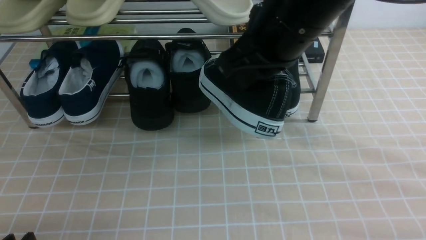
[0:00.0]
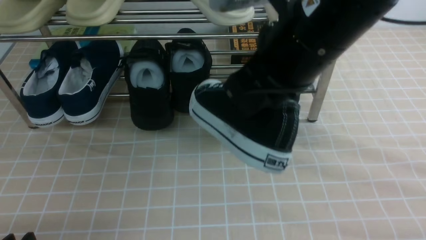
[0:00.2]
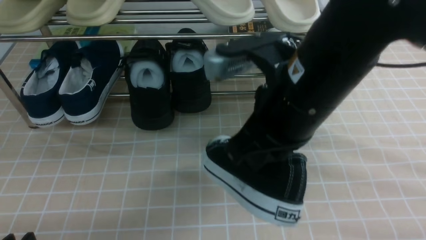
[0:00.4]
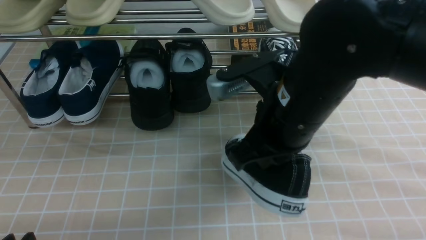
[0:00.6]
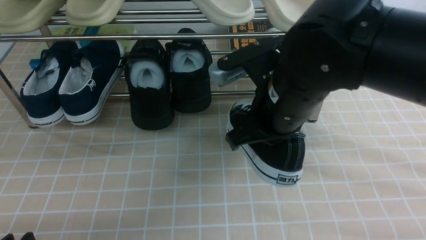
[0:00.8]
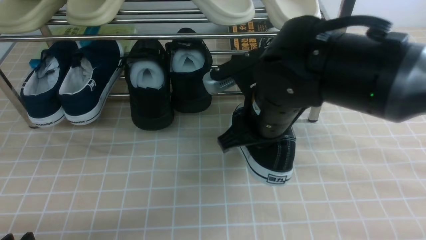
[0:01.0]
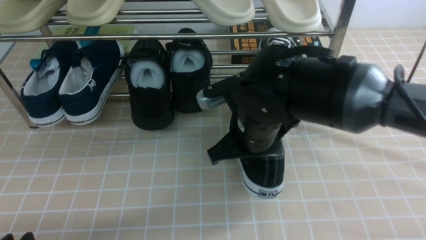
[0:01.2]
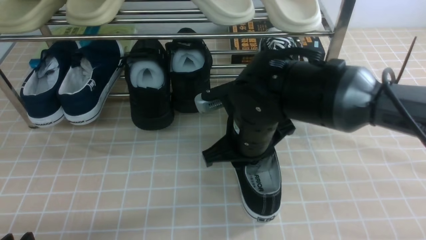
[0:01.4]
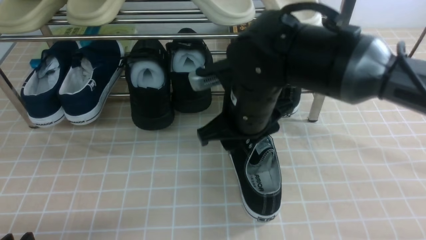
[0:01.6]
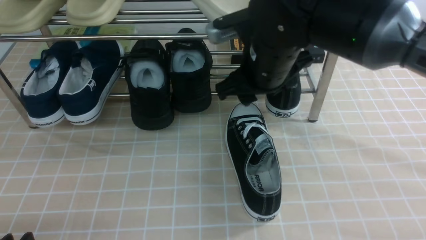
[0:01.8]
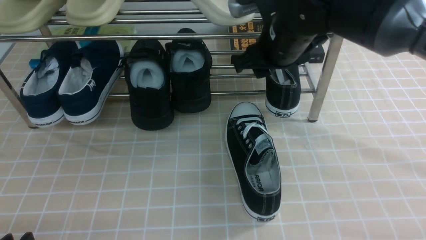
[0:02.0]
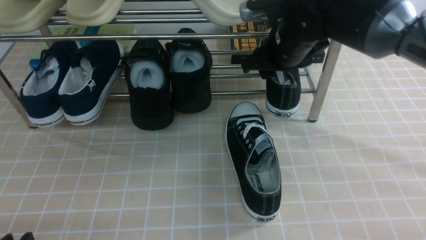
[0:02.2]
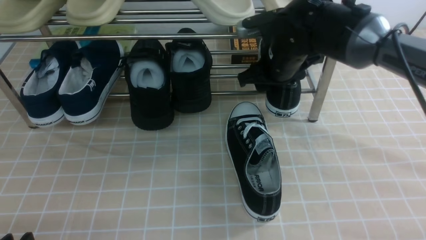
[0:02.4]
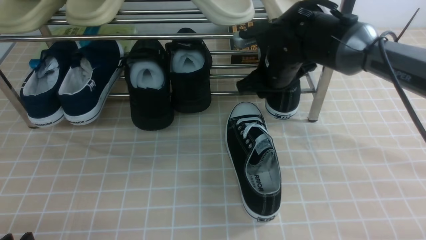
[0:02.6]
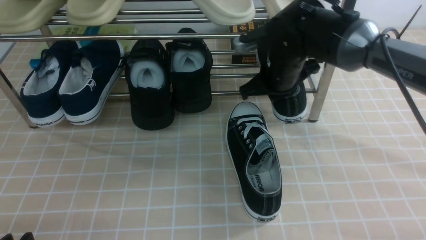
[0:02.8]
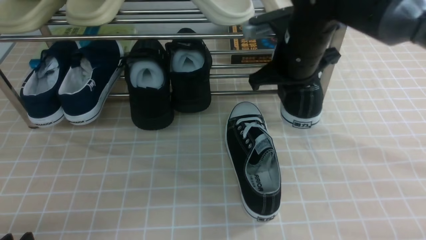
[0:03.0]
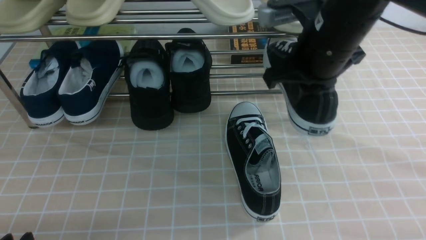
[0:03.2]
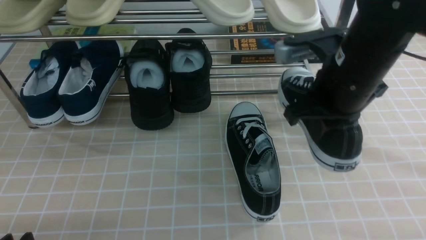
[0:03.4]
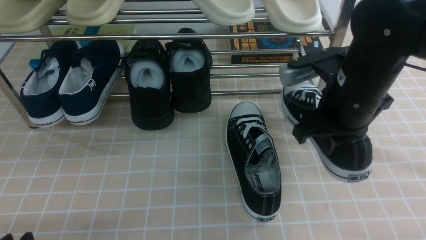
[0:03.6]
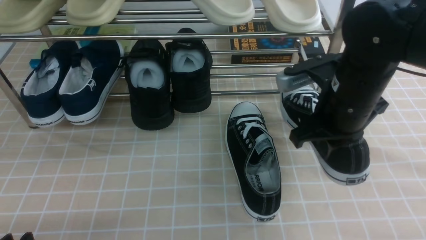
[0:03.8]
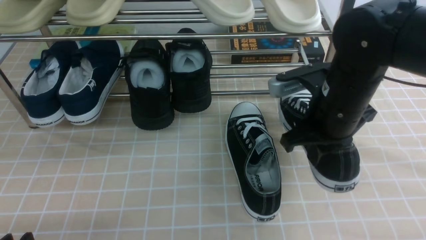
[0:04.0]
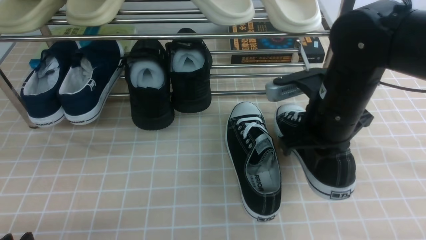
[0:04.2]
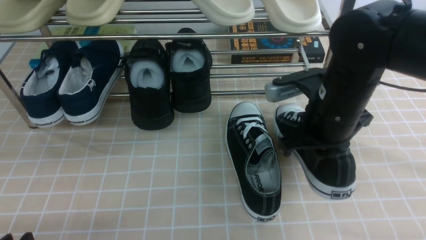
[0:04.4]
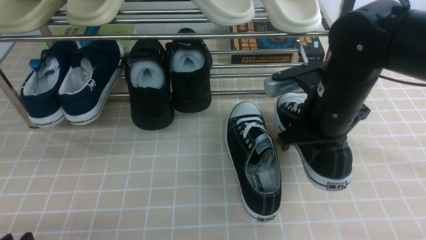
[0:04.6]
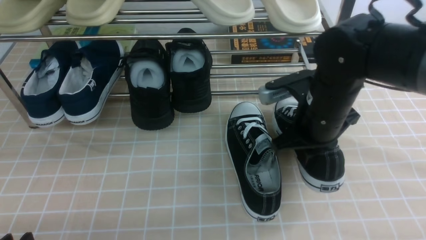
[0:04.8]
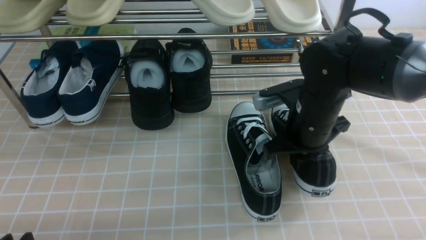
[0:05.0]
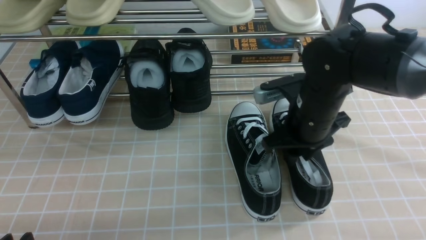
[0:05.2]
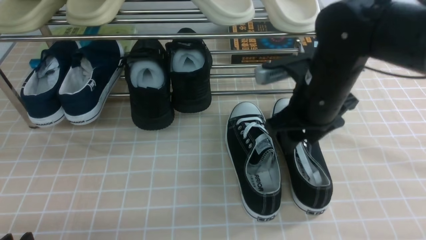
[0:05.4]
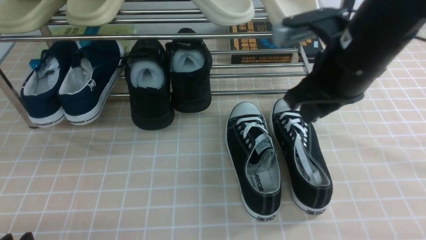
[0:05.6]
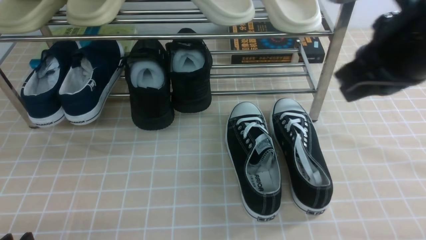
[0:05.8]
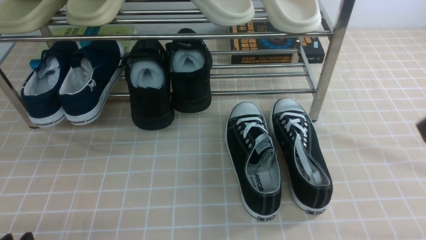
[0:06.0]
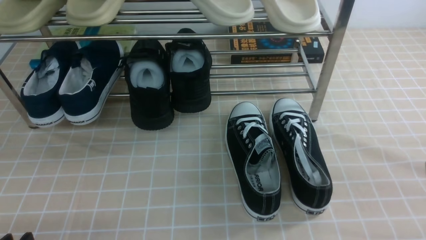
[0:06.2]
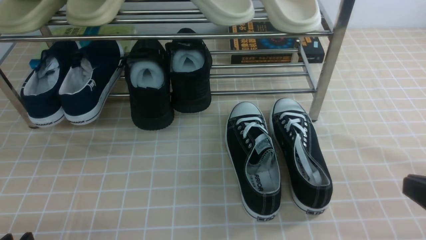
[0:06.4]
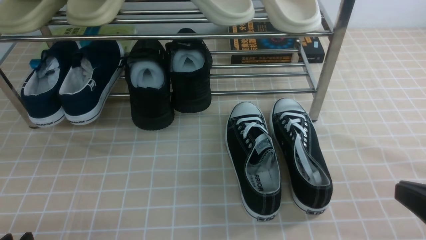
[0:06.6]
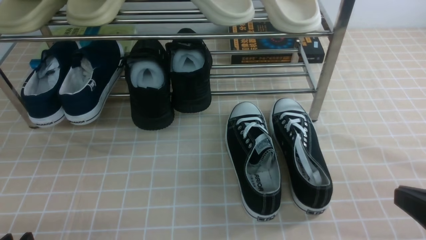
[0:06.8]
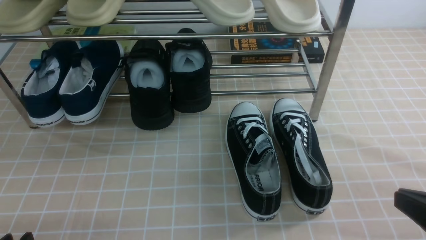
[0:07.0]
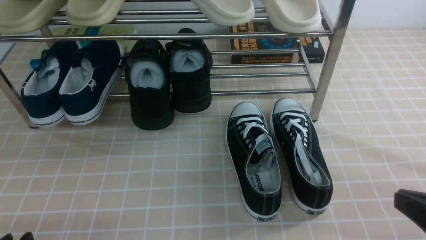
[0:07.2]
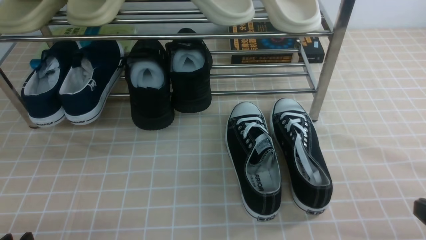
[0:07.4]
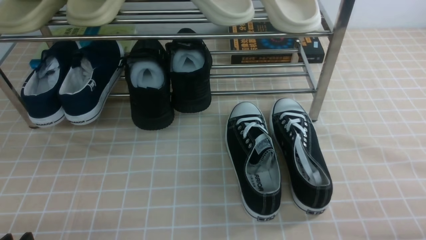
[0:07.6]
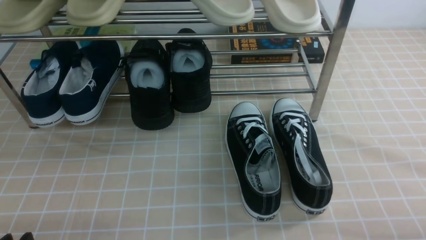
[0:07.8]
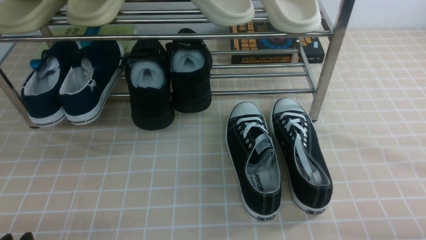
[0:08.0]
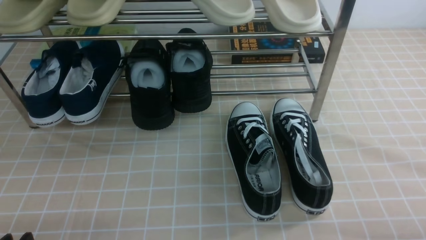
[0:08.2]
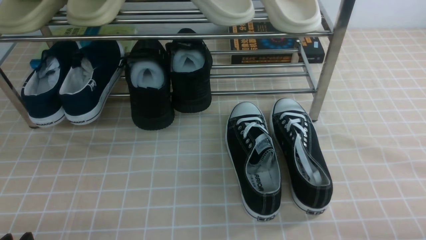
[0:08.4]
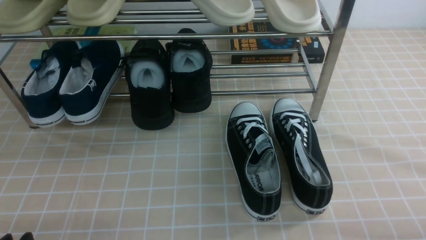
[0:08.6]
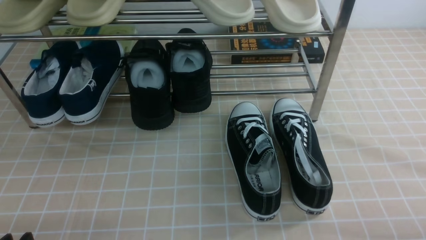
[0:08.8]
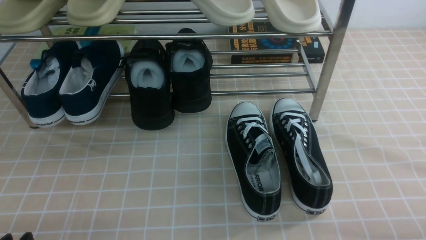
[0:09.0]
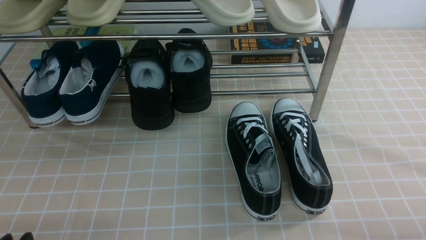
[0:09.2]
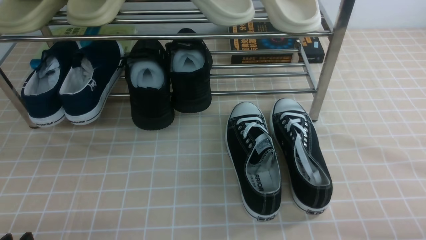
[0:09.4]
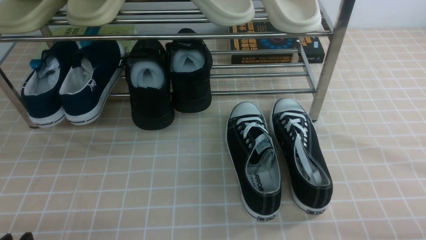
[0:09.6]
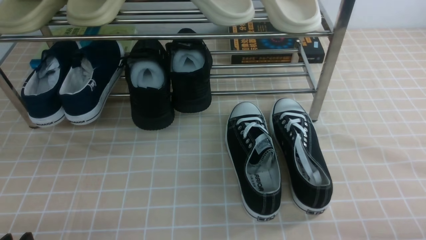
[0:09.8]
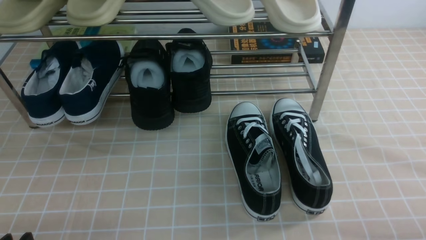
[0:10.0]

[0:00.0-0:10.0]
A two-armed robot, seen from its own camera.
Step, 0.0 to 1.4 s: use the right arm to take out the clamped shoe from the shoe rack and put it down.
Step, 1.8 to 2.6 s: use the right arm to clamp a shoe on the right side of the shoe rack.
Step, 2.8 to 5.4 s: use the right arm to take out the clamped shoe from the shoe rack and put it down.
0.0 to 1.4 s: The right gripper shifts approximately 15 cm downward, and opens up.
1.4 to 2.8 s: The right gripper is displaced forward and to the right by about 15 cm, and closes up.
2.8 to 4.2 s: The right gripper heads backward, covering approximately 10 cm.
4.2 to 5.8 s: The right gripper travels upward and backward by some 15 cm, and opens, then closes once more.
5.8 to 7.2 s: The right gripper shifts roughly 20 cm downward, backward and to the right.
7.2 to 8.6 s: The right gripper travels downward by about 10 cm.
8.6 to 10.0 s: Both grippers stay about where they are.

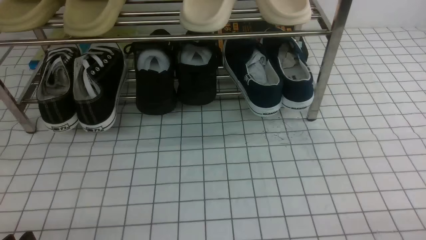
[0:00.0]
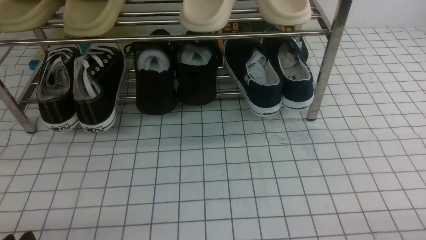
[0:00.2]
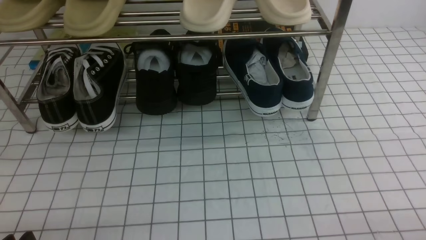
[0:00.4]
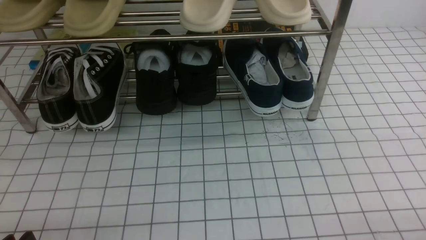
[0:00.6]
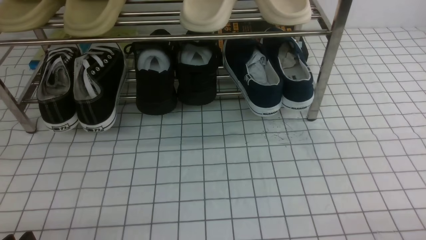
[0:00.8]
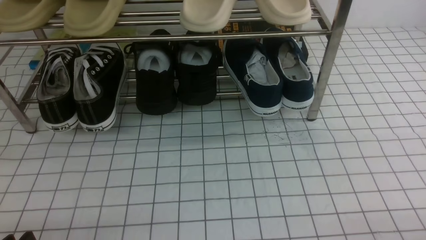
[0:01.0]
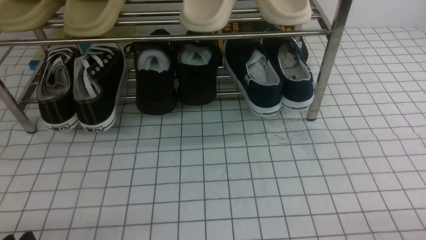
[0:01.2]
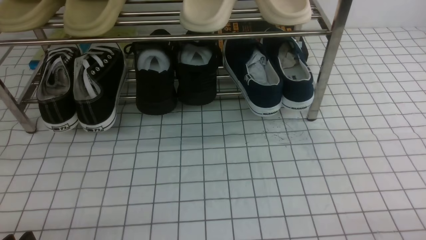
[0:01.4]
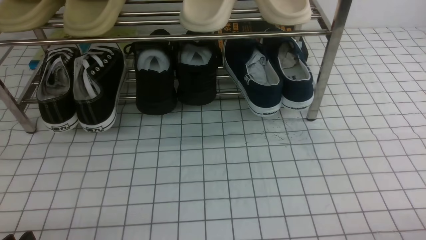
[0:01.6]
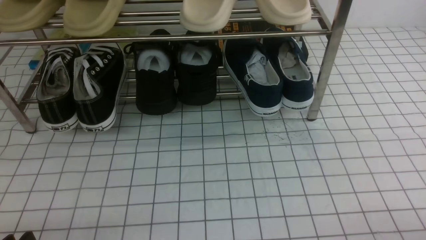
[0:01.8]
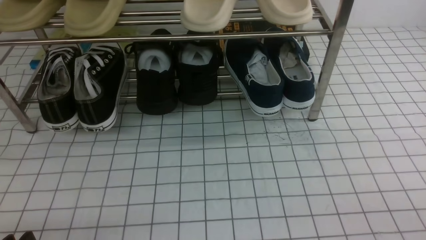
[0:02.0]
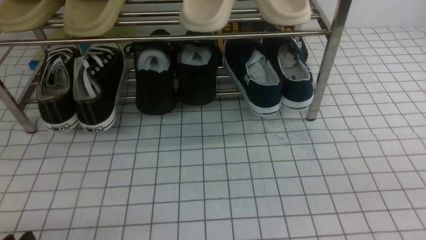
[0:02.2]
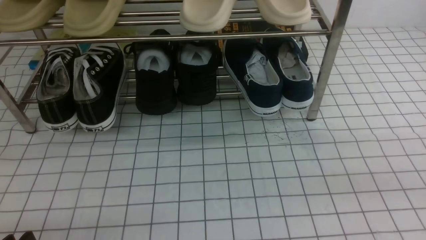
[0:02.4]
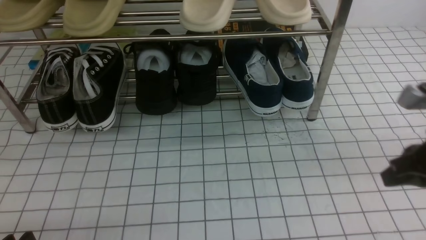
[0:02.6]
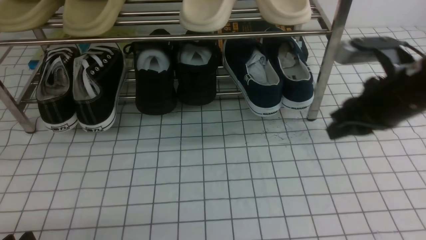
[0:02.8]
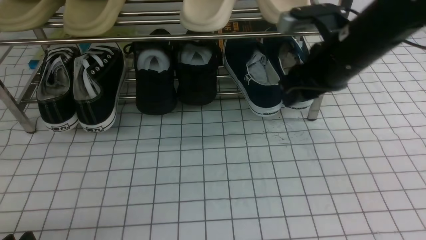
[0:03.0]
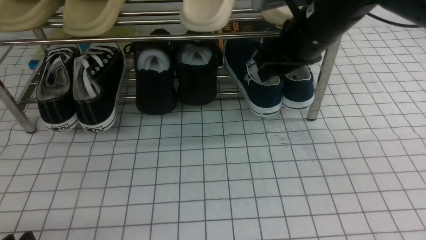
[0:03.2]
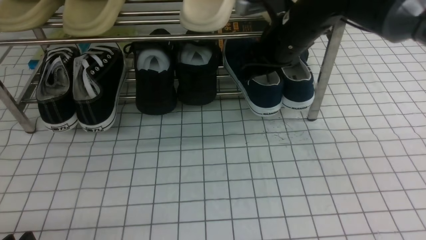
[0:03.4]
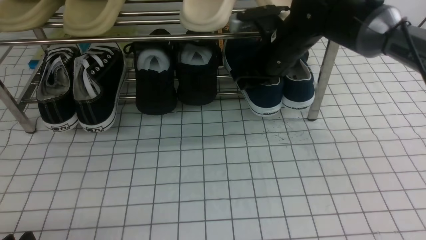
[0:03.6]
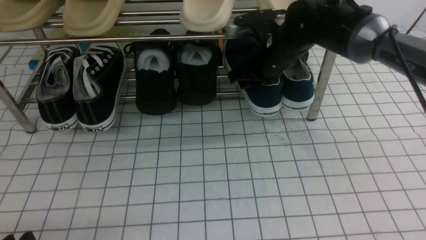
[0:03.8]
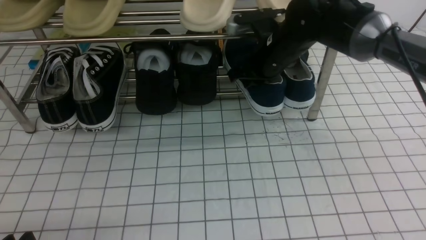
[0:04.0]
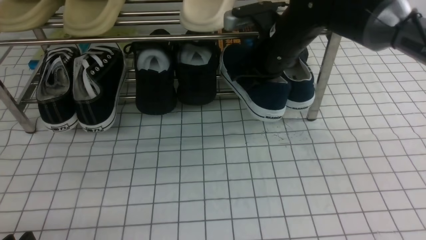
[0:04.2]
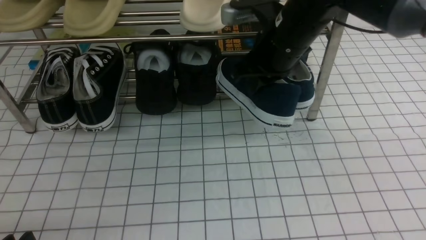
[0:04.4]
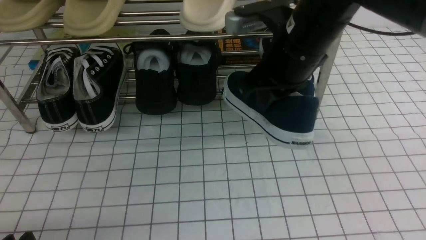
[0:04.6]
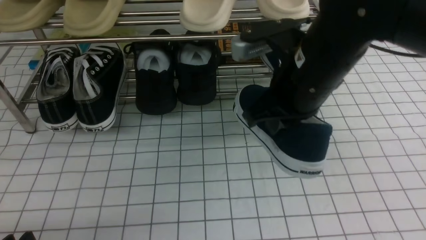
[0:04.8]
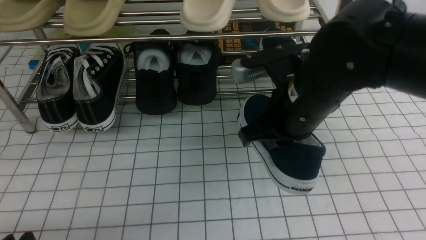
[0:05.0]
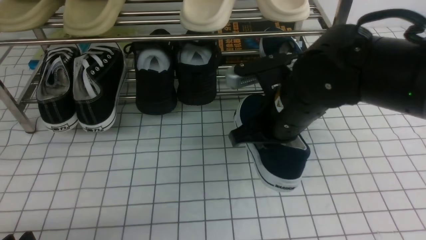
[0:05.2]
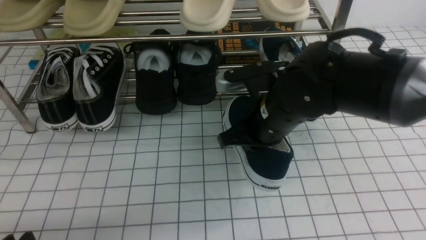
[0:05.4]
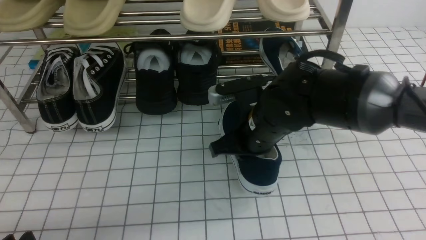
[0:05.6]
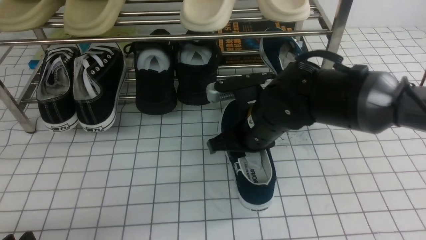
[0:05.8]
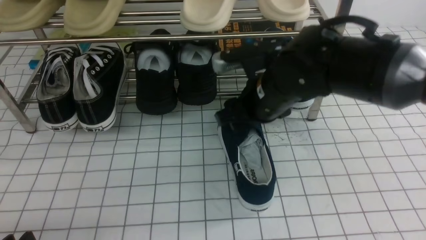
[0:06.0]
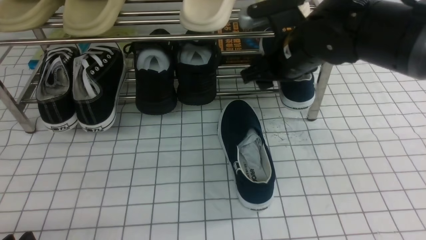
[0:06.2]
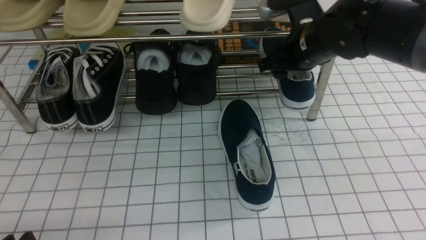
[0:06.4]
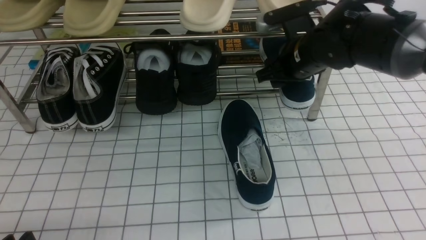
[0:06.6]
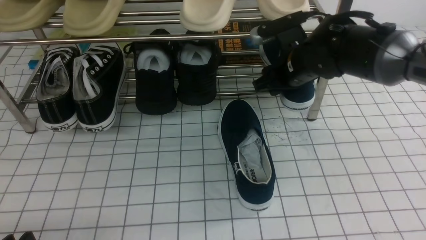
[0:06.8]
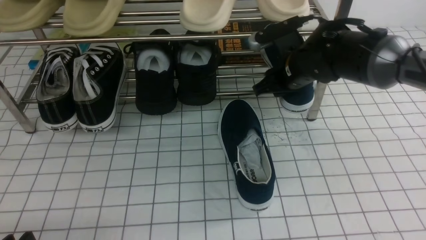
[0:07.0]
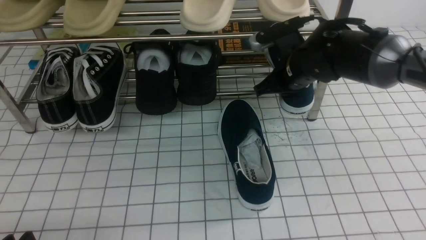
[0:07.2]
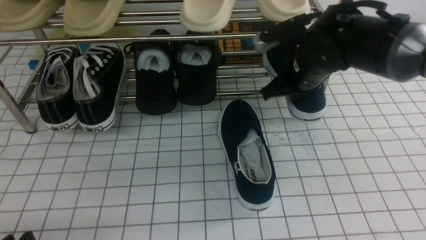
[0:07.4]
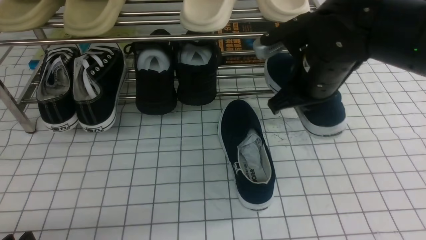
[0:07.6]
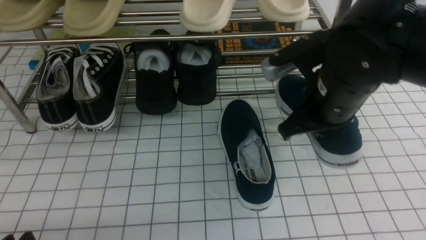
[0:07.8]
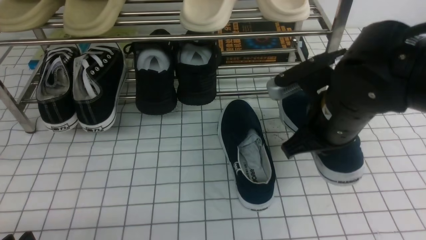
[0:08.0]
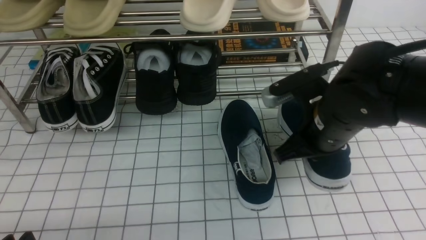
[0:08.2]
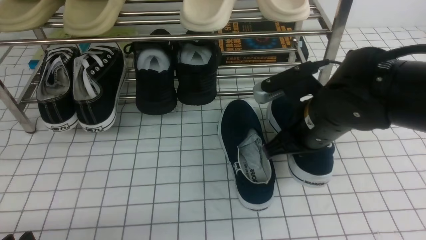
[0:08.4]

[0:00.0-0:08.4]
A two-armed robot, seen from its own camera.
Step, 0.0 to 3.8 s: use the right arm to clamp a shoe on the right side of the shoe rack.
Step, 4.0 to 6.0 s: use the right arm to take out the clamped shoe from the shoe rack and put it down.
Step, 6.2 to 7.0 s: use the right arm to clamp a shoe on the right side of the shoe rack.
1.4 to 2.8 s: The right gripper travels forward, upward and to the left by some 25 cm.
2.8 to 4.2 s: The right gripper is displaced forward and to the left by some 20 cm, and opens, then closes once more.
4.2 to 5.6 s: The right gripper heads backward, covering roughly 10 cm.
5.6 to 7.0 s: The right gripper shifts approximately 15 cm forward and to the right, and opens its fingers.
7.0 to 8.4 s: The right gripper heads backward, covering approximately 15 cm, and closes.
